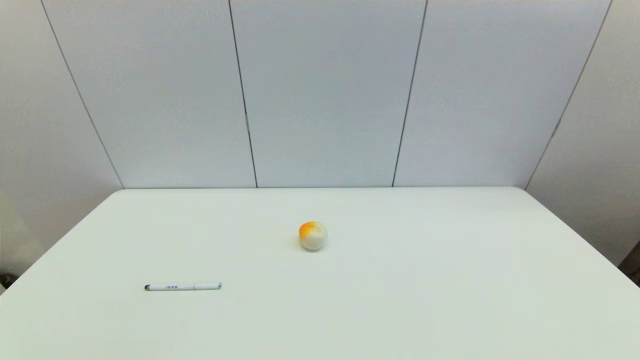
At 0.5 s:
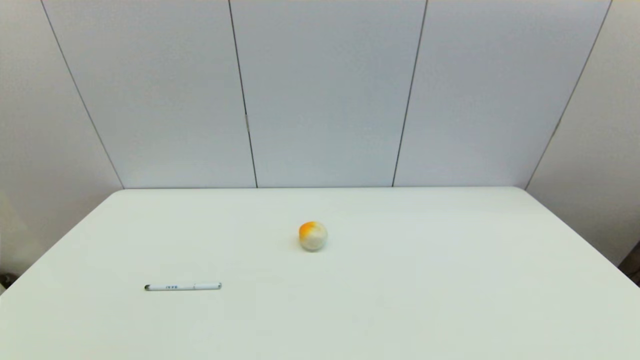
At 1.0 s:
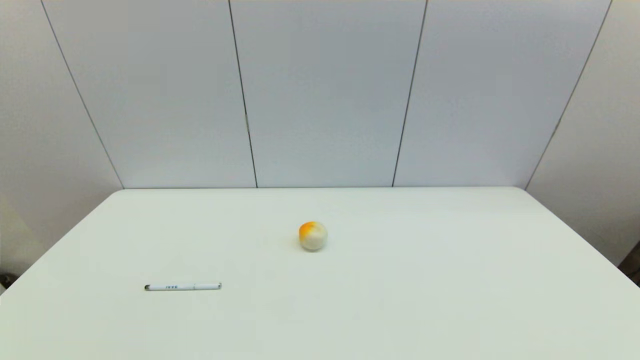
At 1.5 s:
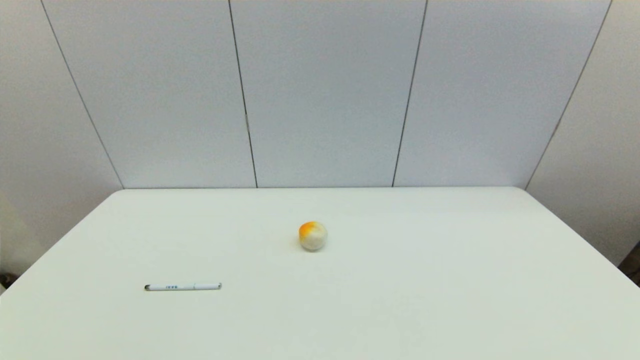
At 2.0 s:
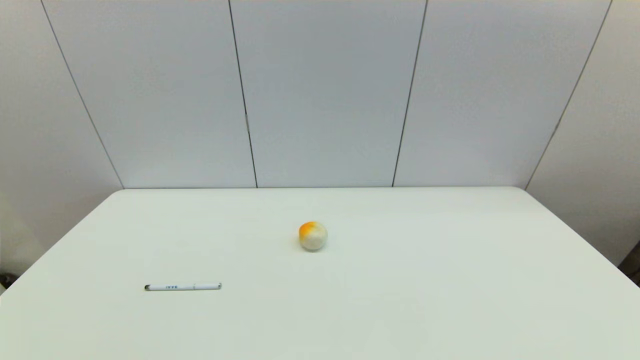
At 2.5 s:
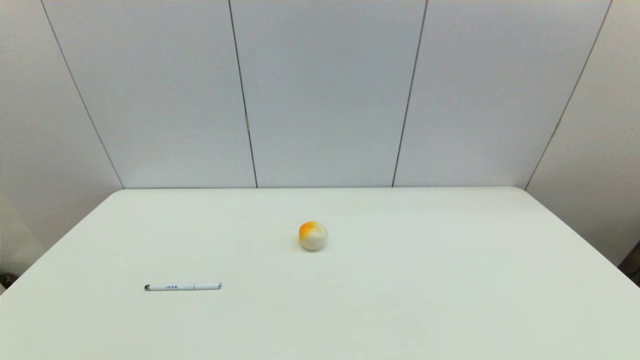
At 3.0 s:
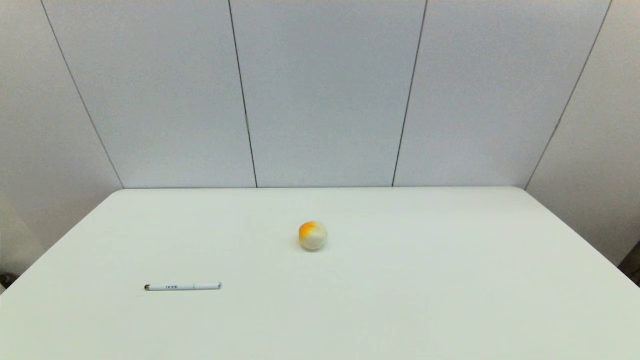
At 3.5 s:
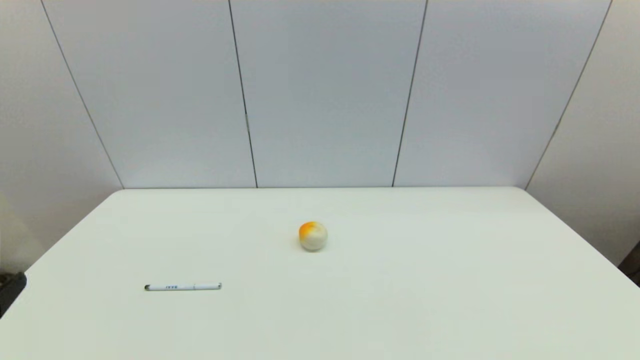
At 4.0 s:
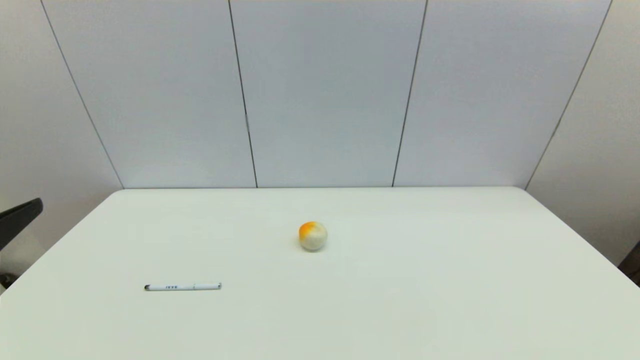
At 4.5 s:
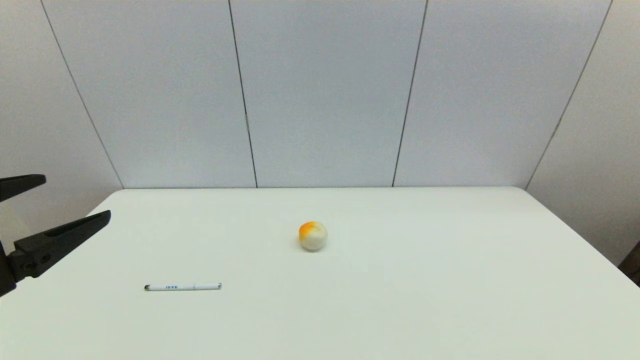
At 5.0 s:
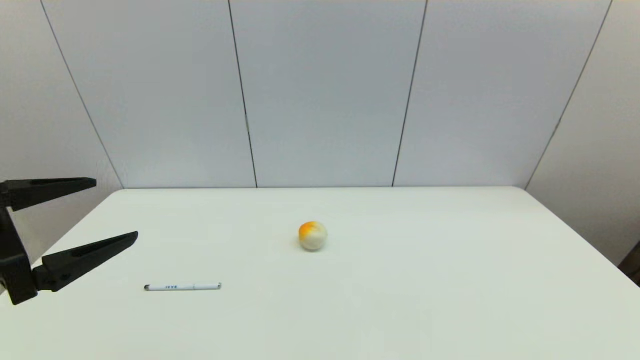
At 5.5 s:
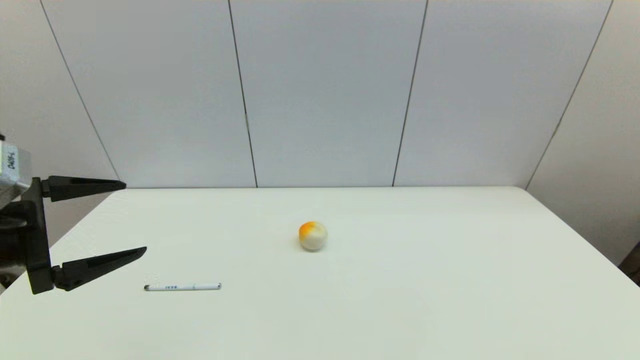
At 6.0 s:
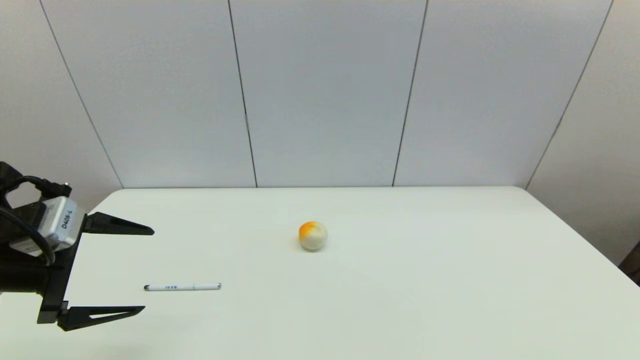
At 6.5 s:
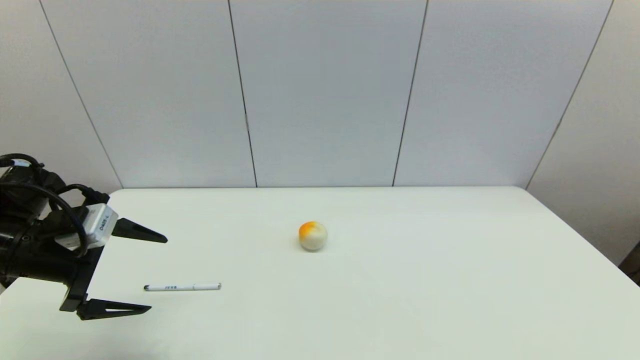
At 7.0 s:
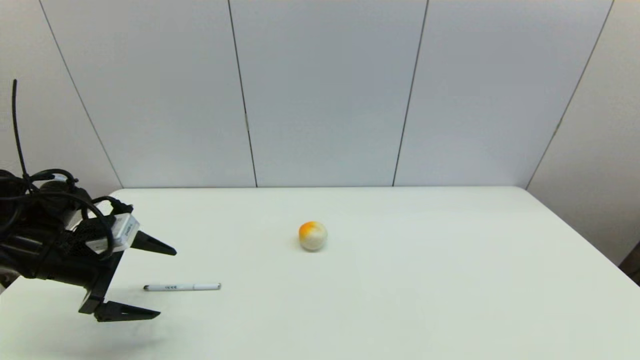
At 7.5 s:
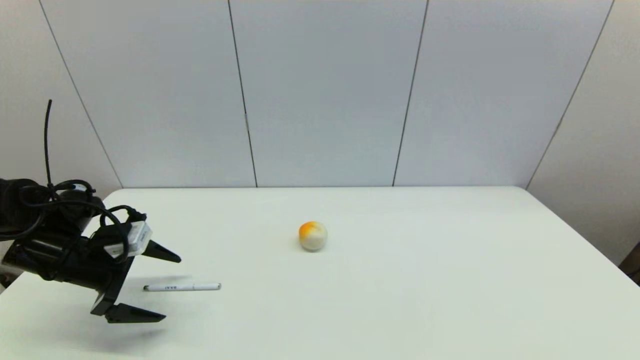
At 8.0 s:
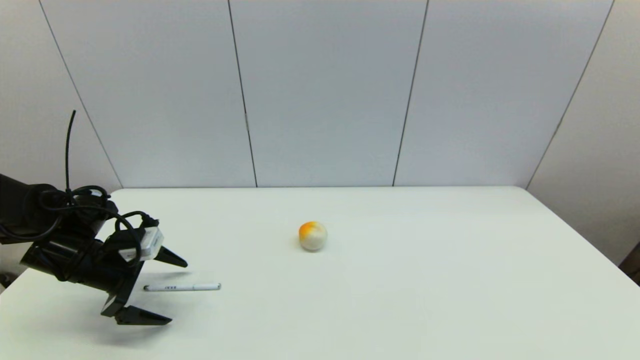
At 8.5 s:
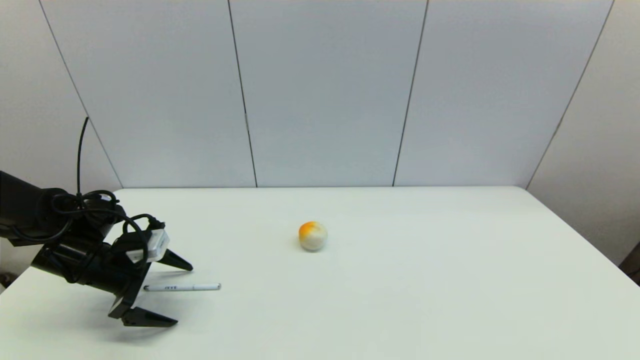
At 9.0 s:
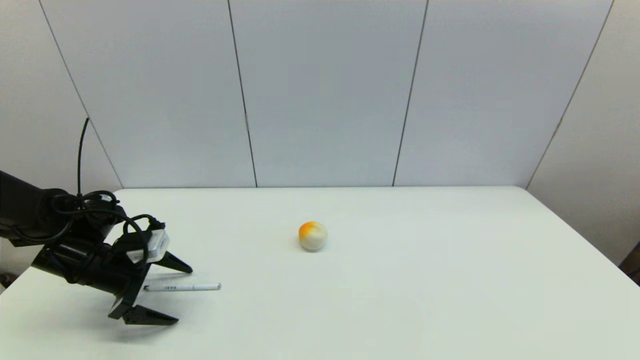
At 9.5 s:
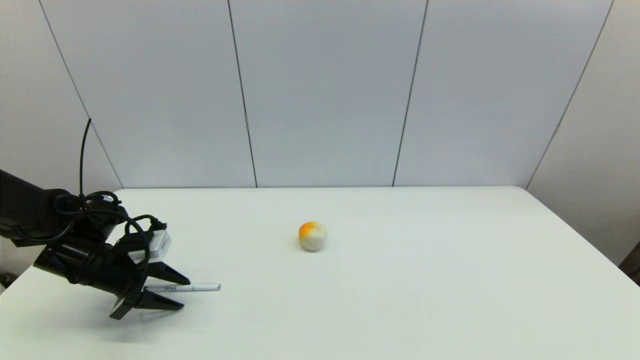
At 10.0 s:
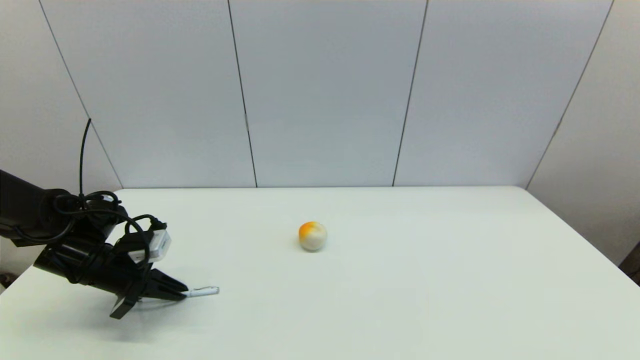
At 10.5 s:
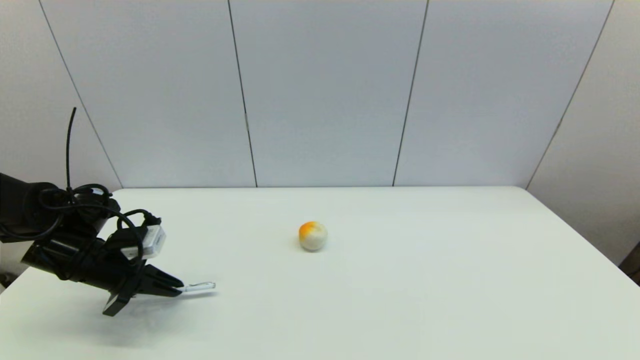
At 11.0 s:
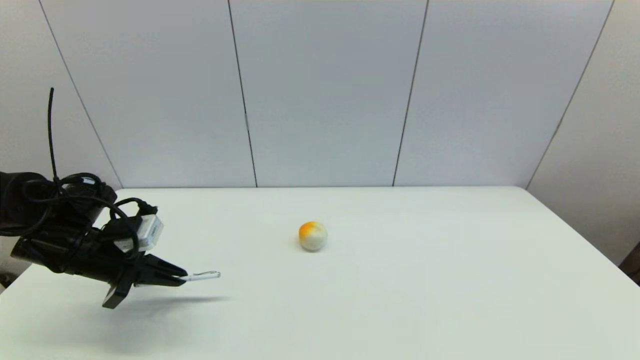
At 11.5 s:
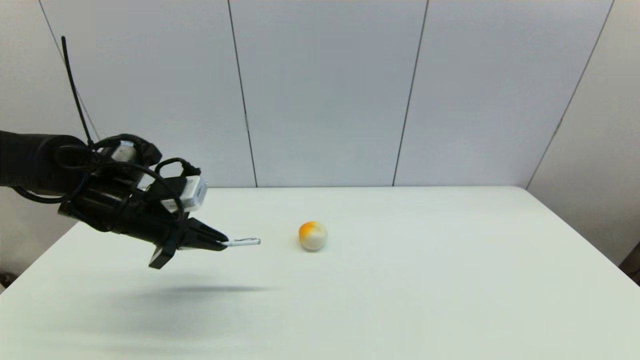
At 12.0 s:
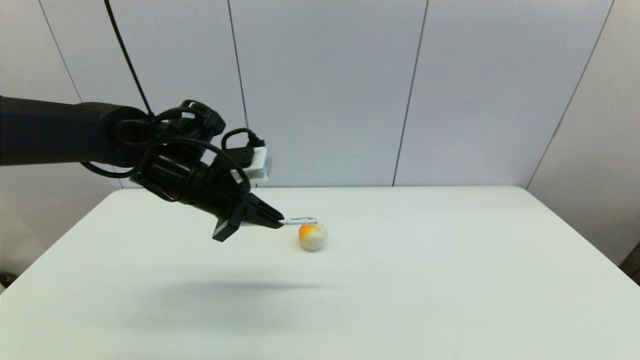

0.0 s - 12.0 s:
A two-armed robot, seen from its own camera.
Task of the whole recording: put the pen in the designated position.
Step, 3.5 s - 10.0 s: Grasp the sign pen with left gripper.
0.0 s - 2.0 s: Neither gripper changes place.
4.0 s - 6.0 s: The left gripper goes about 15 cm forward and downward.
6.0 s - 8.0 s: The left gripper travels downward and forward by roughly 15 cm.
8.0 s - 10.0 s: The left gripper closes its fingers.
10.0 s - 12.0 s: The left gripper moves to the right and upward, about 20 cm.

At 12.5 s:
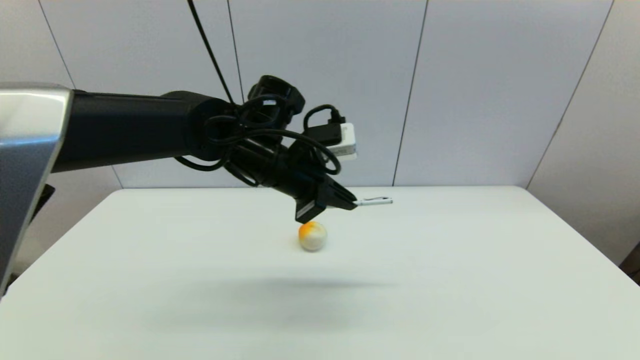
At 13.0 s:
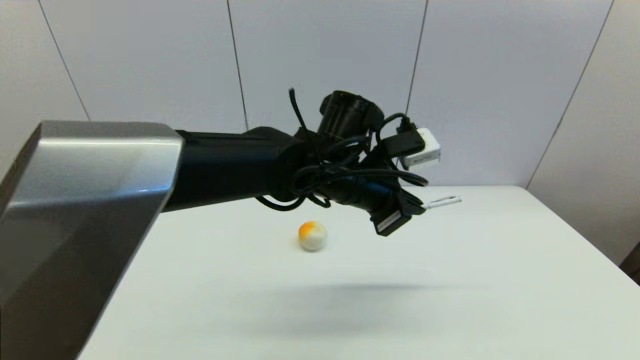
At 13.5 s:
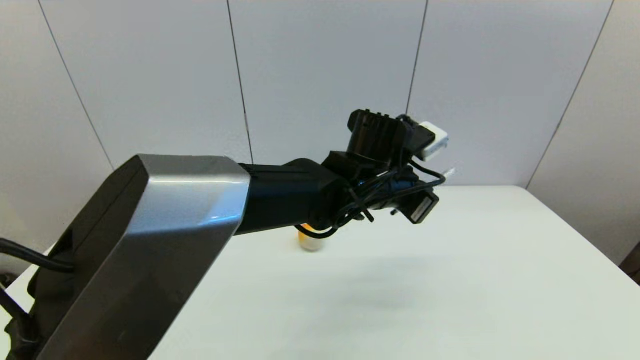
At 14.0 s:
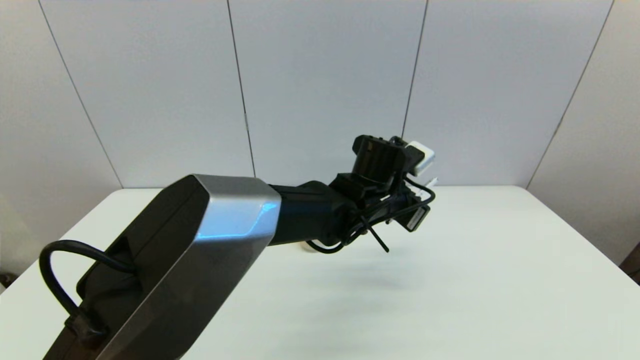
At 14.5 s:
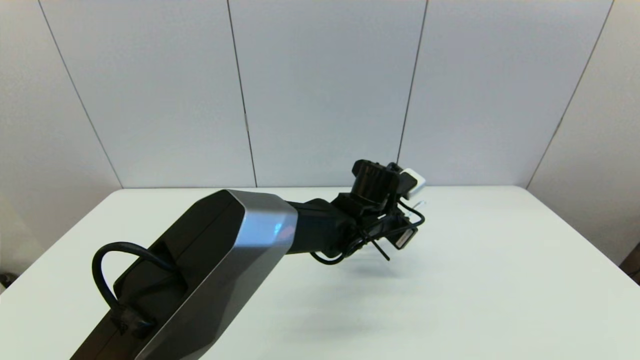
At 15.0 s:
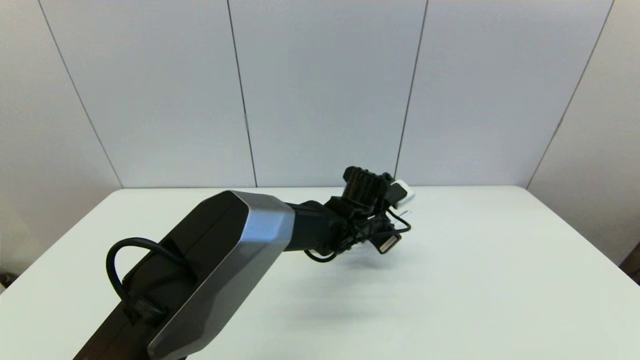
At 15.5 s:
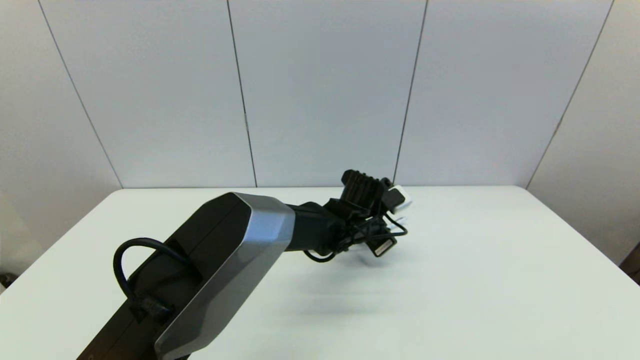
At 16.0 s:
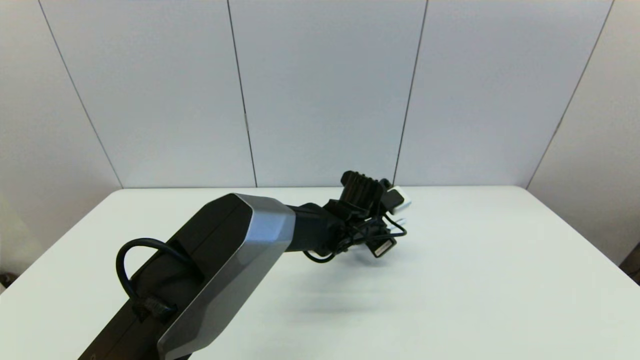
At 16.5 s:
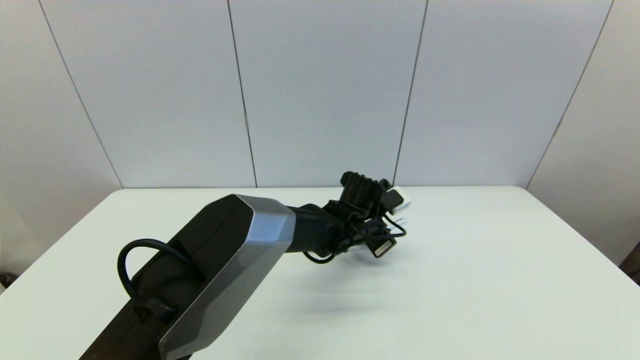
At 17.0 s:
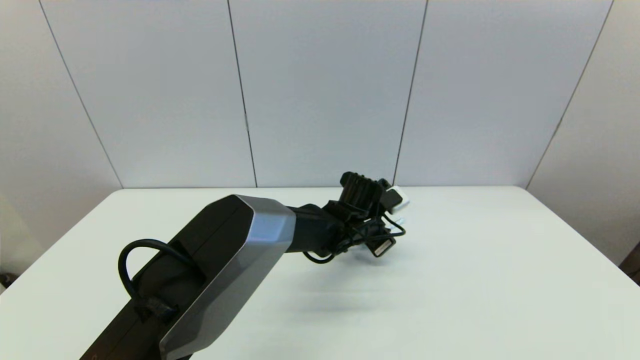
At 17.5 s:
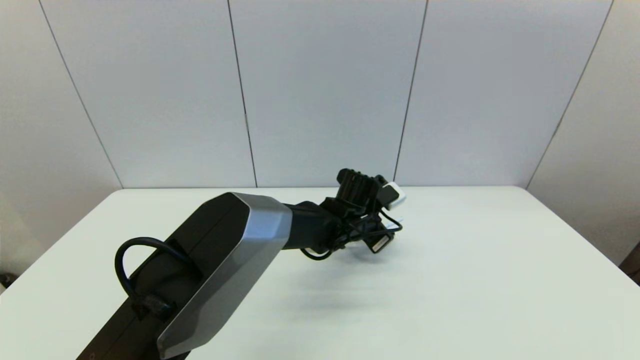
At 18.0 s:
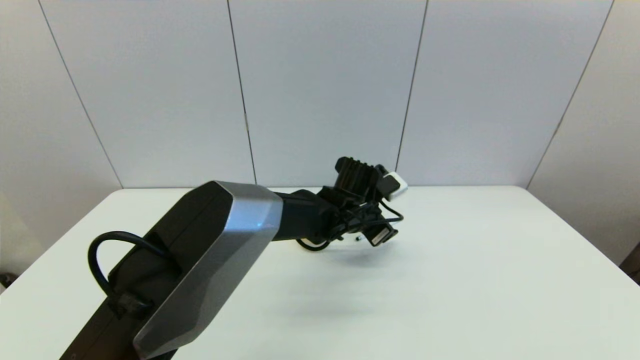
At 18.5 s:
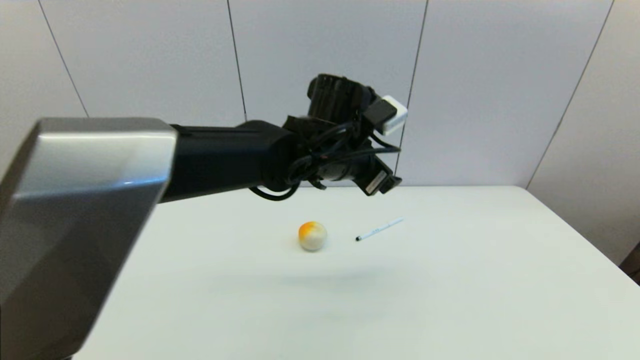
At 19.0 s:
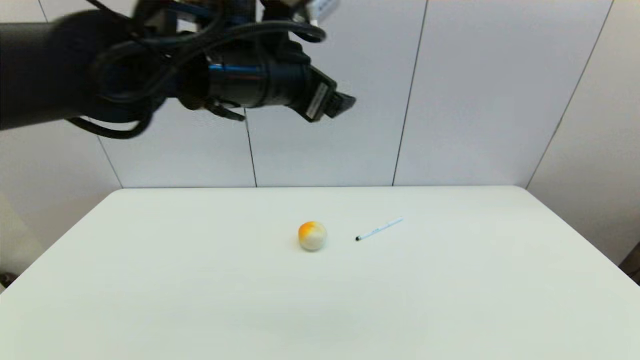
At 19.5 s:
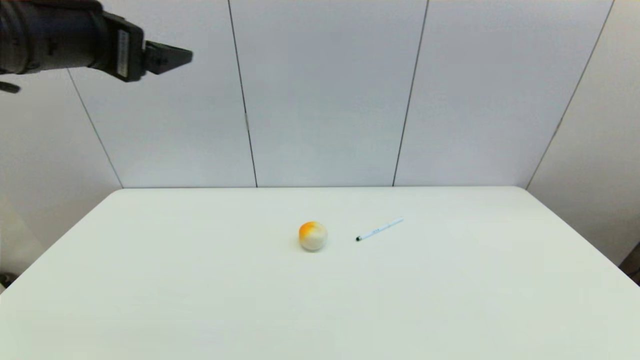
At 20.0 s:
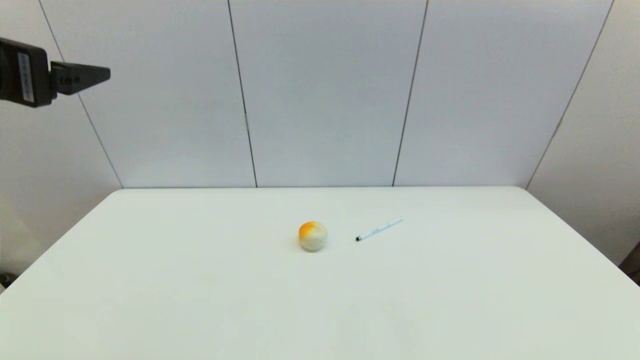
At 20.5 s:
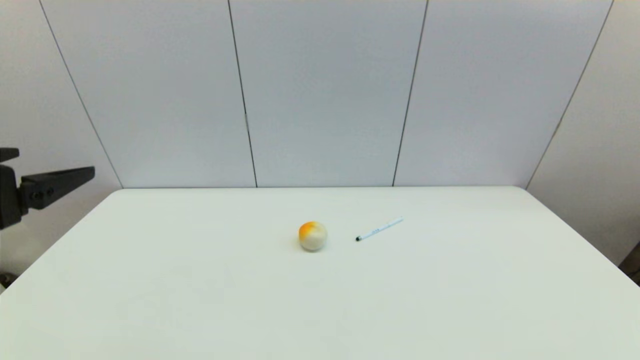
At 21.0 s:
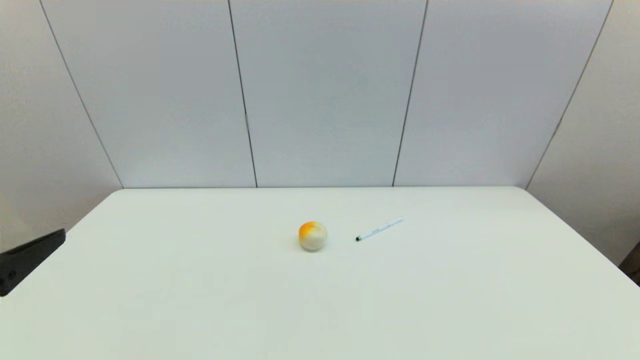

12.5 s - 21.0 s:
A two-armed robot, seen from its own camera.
Task of the whole recording: put the pen in the designated position.
Step, 12.5 s - 17.5 s: Place the sign pen on the table with left gripper.
12.5 s - 14.5 s: The left gripper shifts some 20 cm to the right and downward.
14.5 s - 16.5 s: The grippers stay close to where they were, moving slightly.
16.5 s - 19.0 s: The left gripper moves upward and to the left, roughly 30 cm, and opens up.
19.0 s - 21.0 s: The left gripper goes roughly 30 cm to the left, backward and downward.
